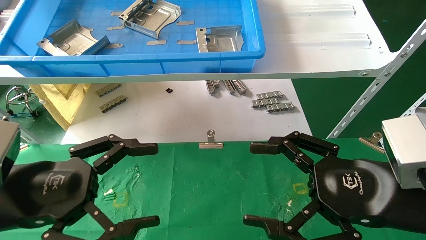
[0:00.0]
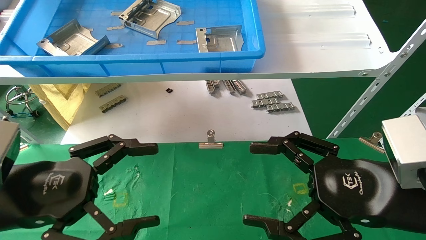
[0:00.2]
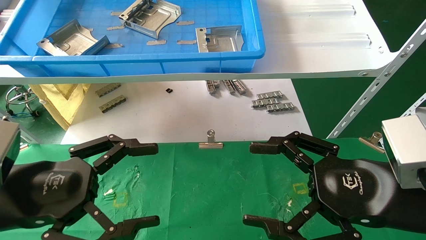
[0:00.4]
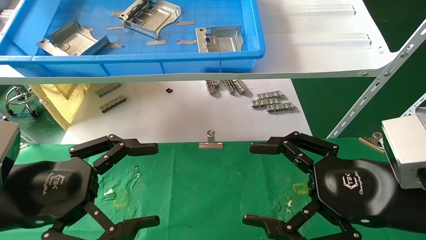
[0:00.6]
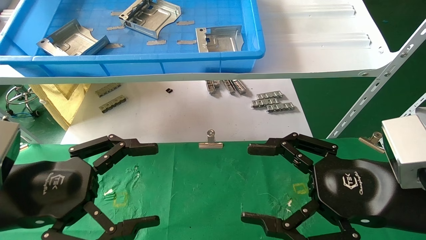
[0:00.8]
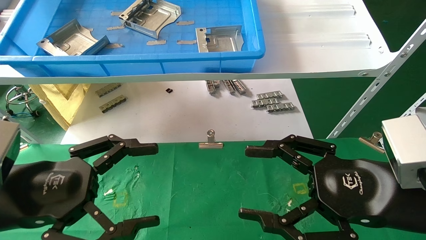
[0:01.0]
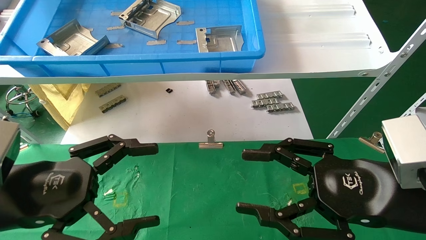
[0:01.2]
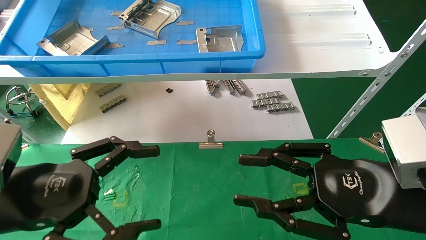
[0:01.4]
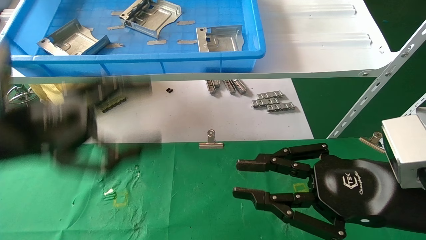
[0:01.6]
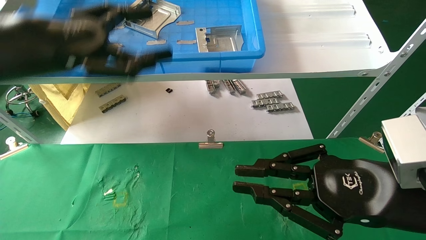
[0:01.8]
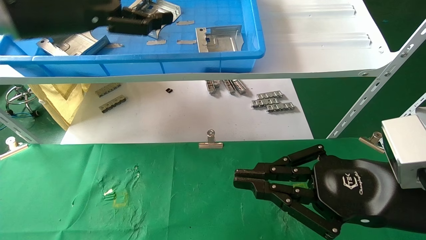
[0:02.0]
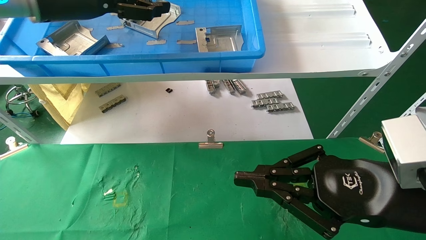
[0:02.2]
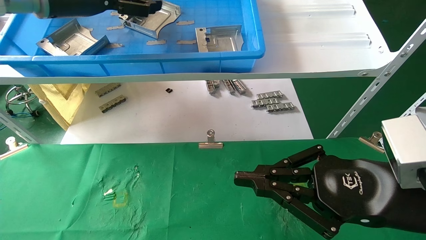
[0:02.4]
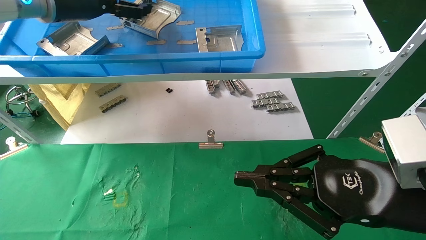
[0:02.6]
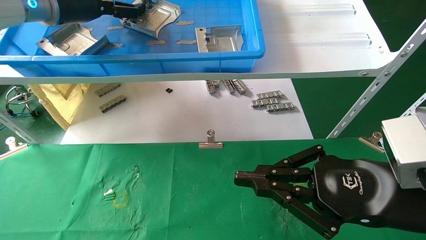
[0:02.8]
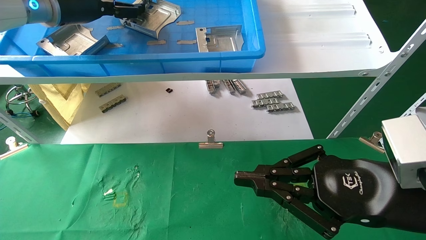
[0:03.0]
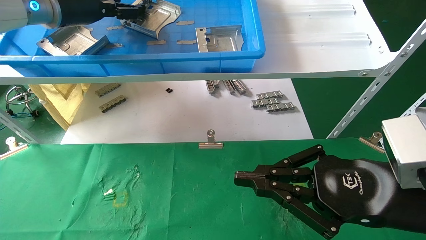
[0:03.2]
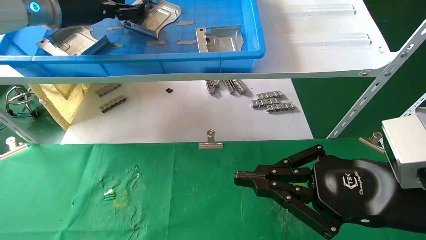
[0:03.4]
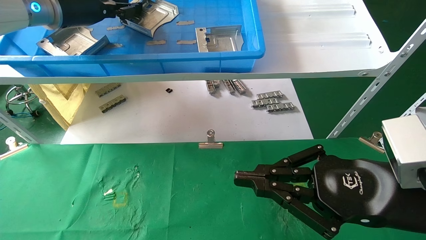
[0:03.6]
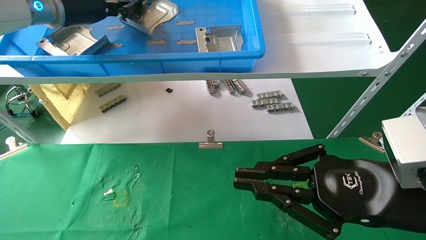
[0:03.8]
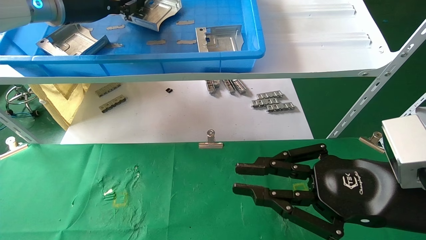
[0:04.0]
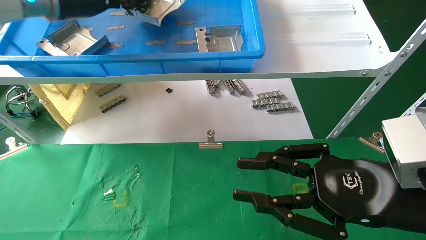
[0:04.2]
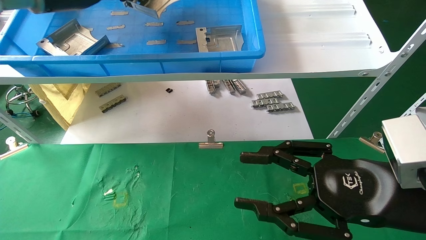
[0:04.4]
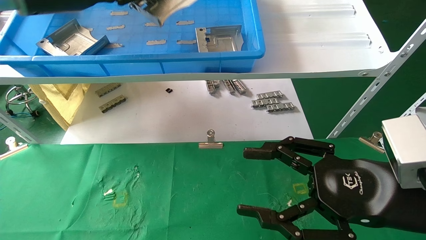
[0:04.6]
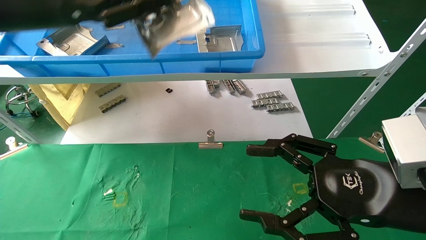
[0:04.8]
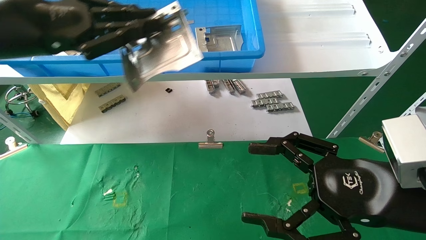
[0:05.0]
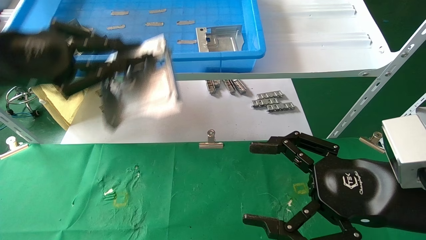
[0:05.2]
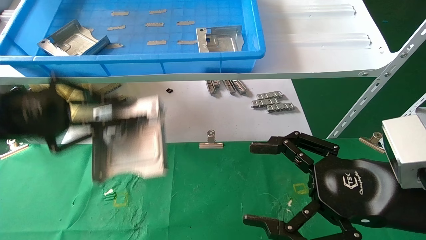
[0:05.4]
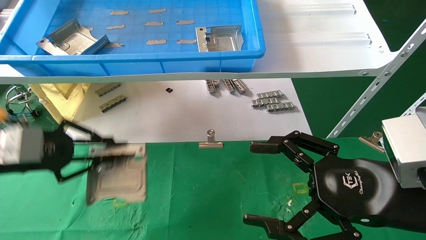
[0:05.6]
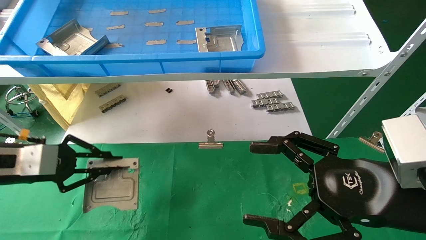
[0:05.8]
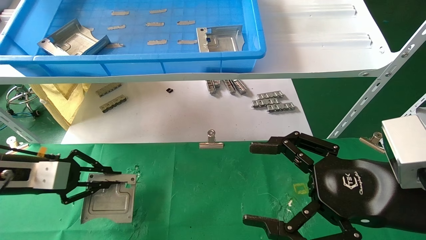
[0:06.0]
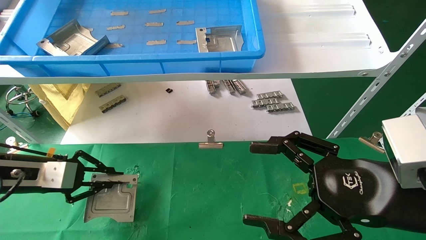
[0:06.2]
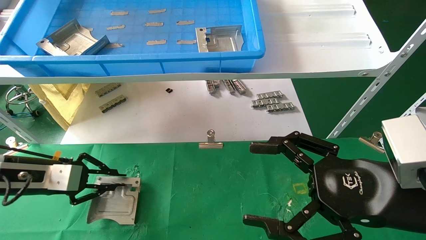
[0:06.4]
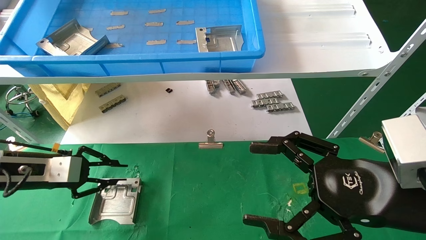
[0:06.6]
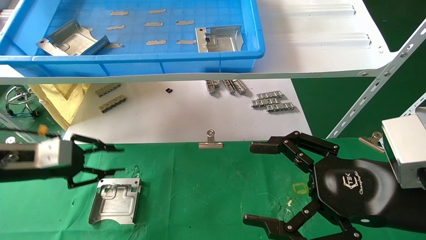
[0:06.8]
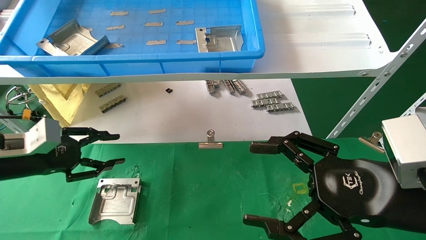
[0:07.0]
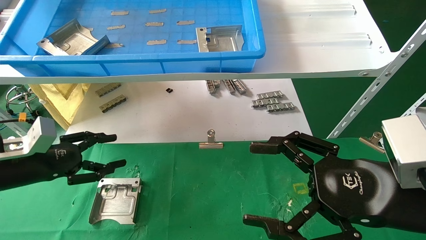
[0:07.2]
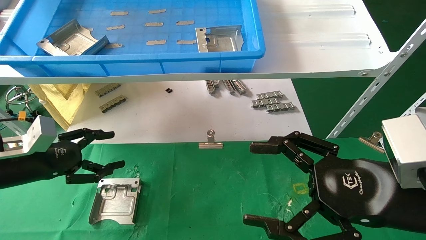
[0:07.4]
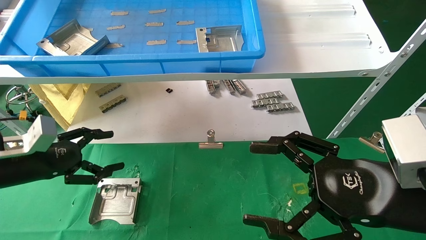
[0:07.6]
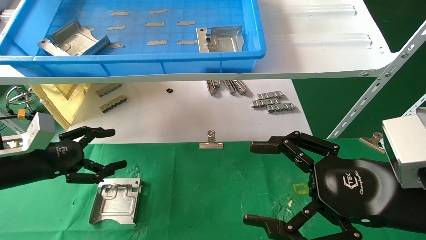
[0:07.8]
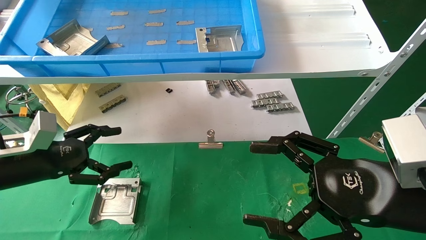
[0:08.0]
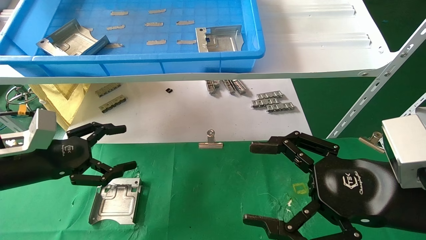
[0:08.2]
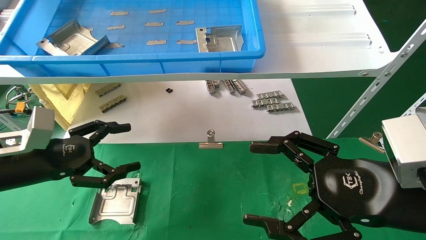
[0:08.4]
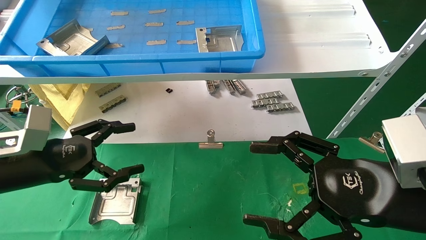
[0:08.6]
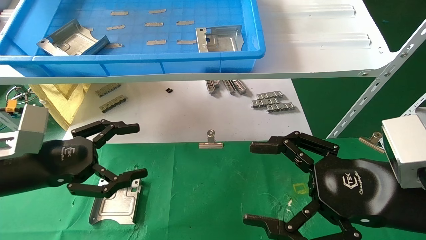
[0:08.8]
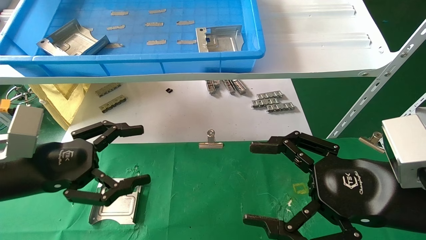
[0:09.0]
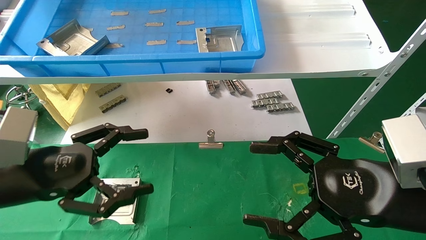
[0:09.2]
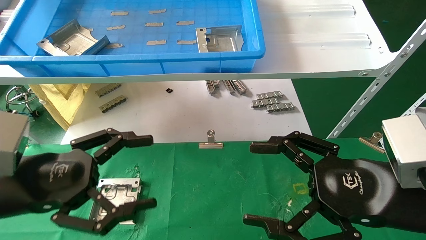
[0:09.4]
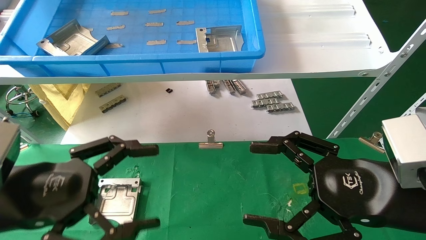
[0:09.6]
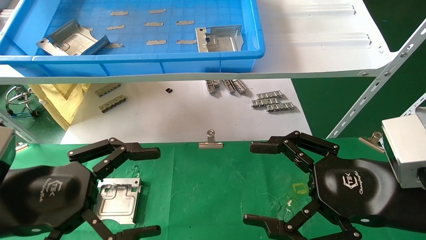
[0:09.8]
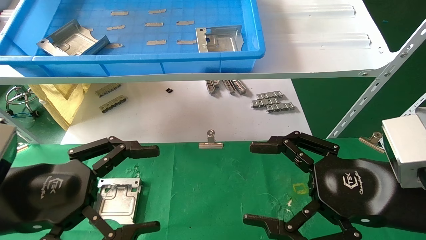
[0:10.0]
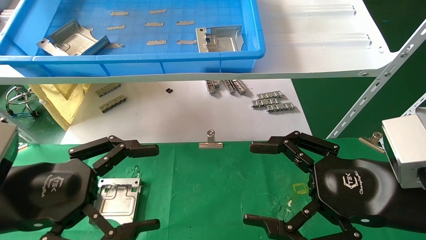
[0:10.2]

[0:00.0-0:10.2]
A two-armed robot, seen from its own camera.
Task of the whole recording: use the mechanical arm to pick up the parts and place them on the table.
Step, 0:01.8 to 0:03.8: Pick up the hard drive bracket from the feeding area.
Step, 0:04.0 to 0:06.8: Place the hard drive bracket into the box.
0:00.0 to 0:01.4: The right gripper closes up.
0:01.4 to 0:03.0: The left gripper travels forward and upward by approximately 30 cm, while the right gripper closes its fingers.
0:03.0 to 0:04.4: The left gripper closes; the right gripper opens.
0:04.4 to 0:05.8: The right gripper opens, while the left gripper is displaced downward and to the left by about 30 cm.
0:05.8 to 0:07.2: The left gripper opens up.
0:07.2 to 0:08.8: The left gripper is displaced to the right and backward by some 10 cm, and opens its fingers.
0:08.8 to 0:10.2: The left gripper moves backward, roughly 10 cm.

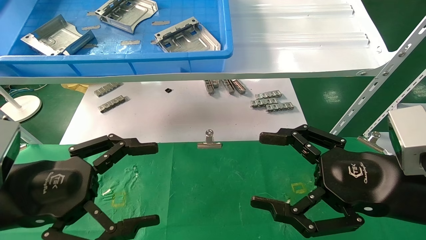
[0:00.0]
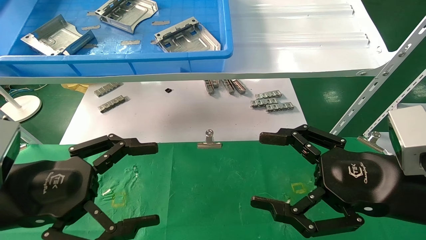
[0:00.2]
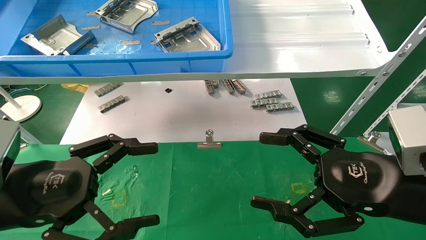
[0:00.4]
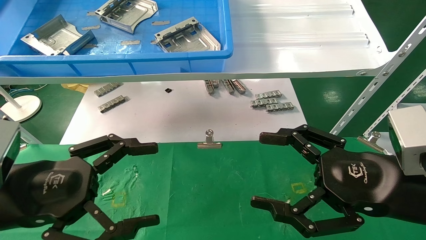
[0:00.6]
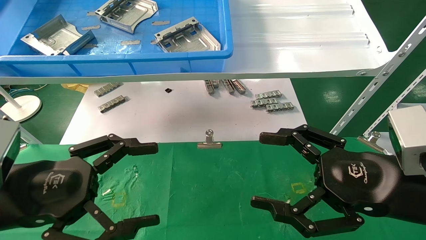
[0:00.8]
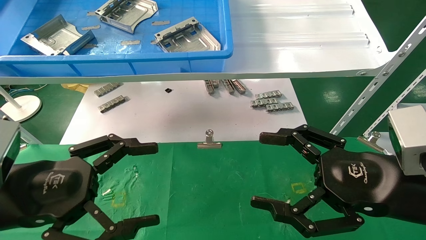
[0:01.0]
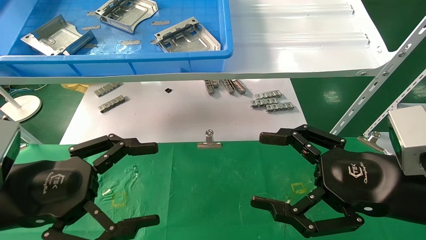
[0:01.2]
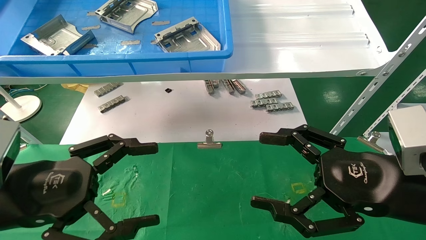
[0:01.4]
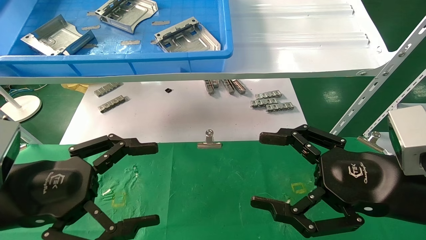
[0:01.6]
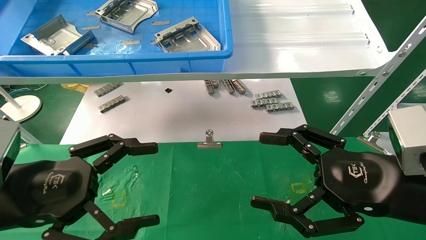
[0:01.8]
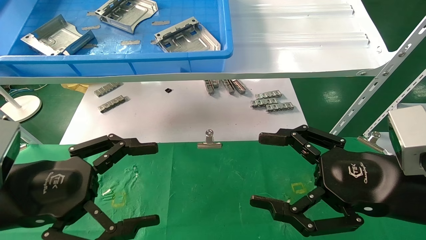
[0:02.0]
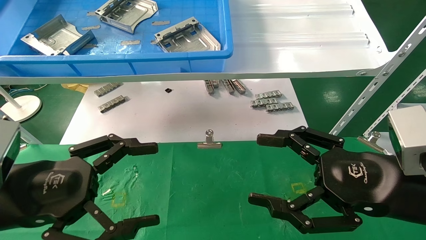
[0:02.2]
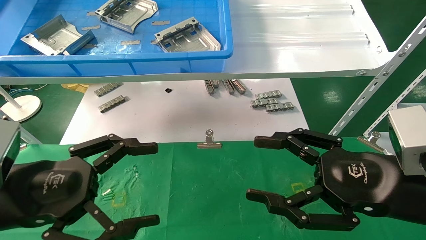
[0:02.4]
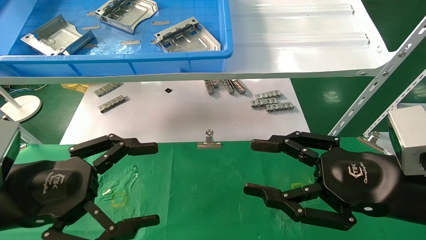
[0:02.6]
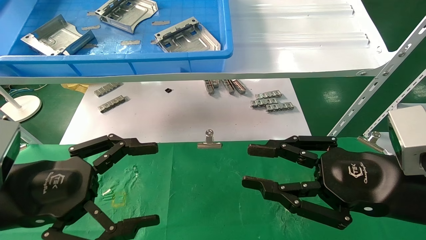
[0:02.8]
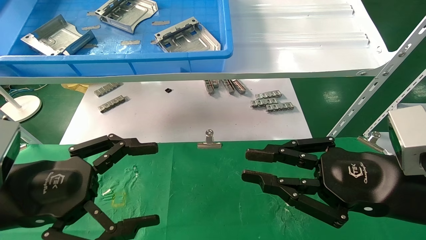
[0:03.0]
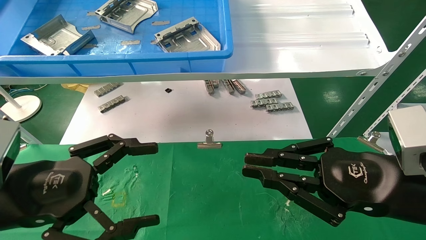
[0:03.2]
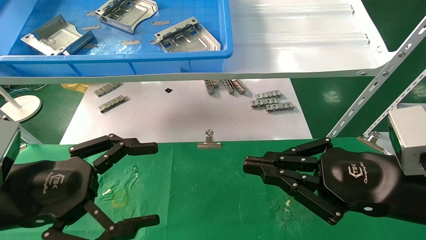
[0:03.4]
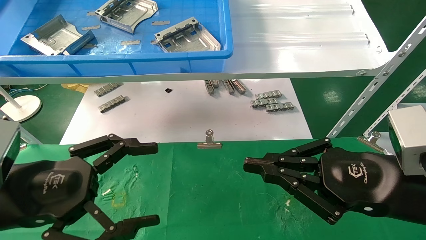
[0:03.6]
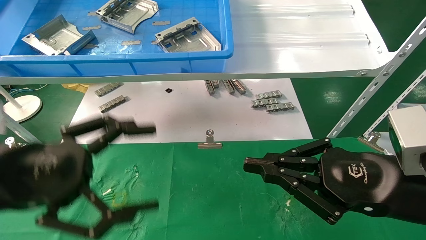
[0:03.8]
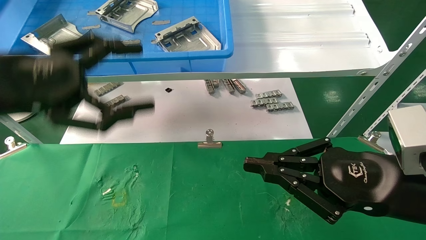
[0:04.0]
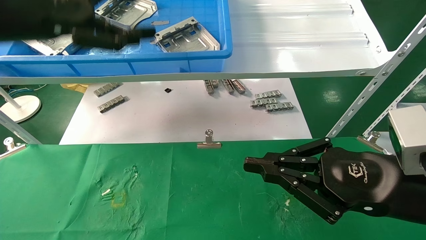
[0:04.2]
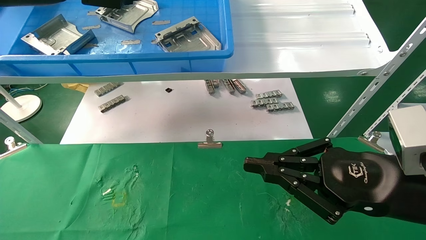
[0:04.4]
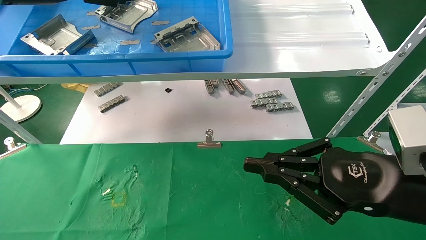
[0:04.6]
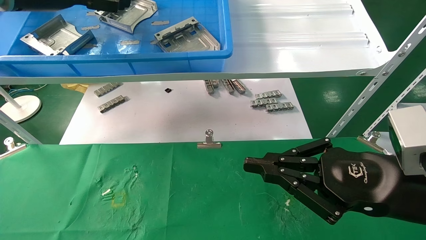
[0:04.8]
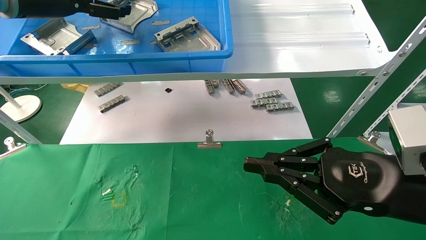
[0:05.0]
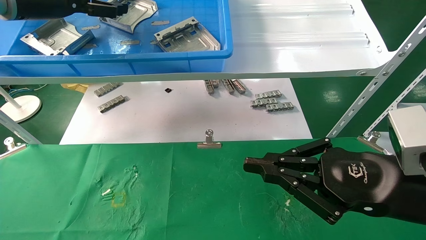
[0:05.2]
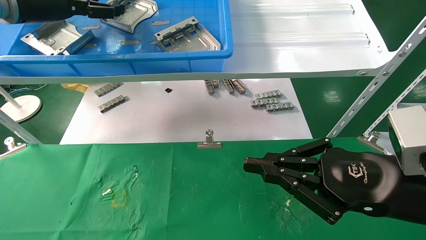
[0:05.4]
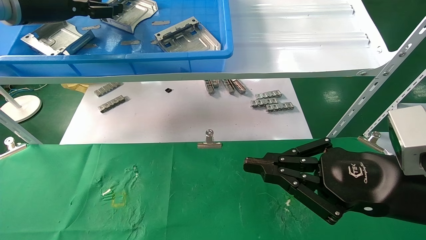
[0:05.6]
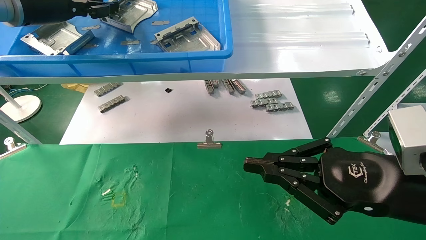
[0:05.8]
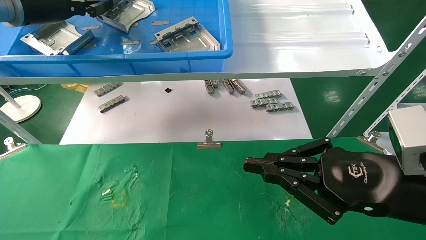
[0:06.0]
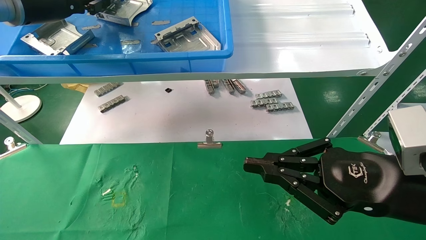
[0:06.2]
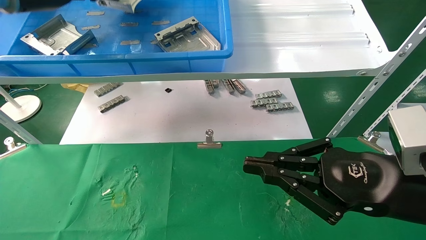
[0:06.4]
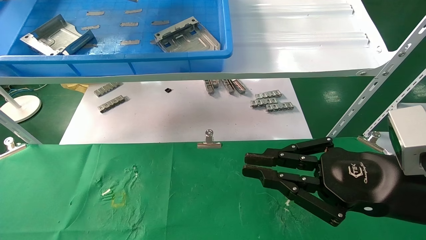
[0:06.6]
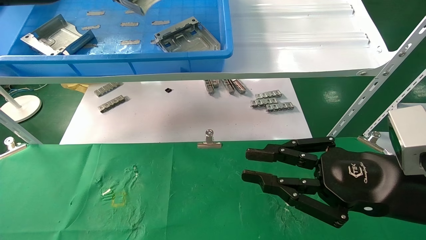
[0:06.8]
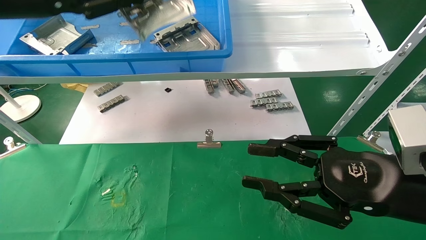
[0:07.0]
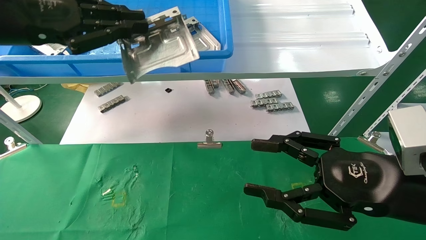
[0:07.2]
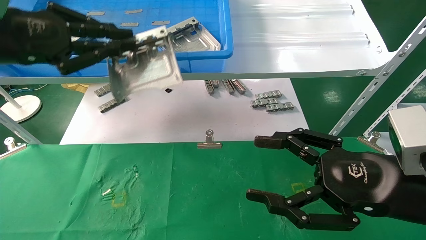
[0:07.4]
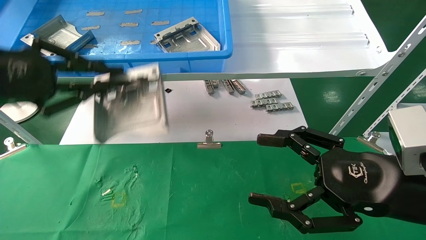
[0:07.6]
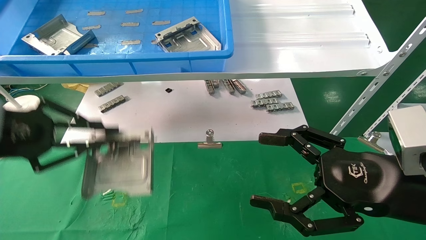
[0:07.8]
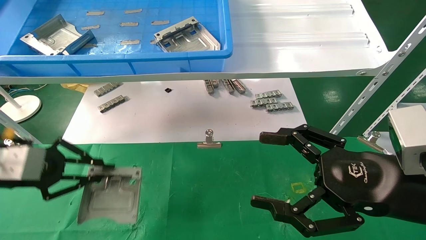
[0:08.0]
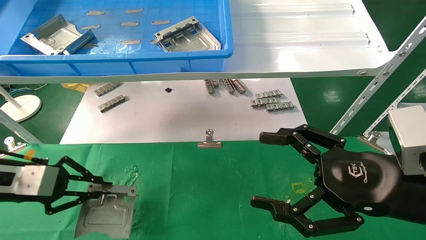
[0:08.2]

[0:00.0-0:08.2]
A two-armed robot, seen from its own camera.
Task of the whole recording: use the mechanical arm to pick up the parts and place them on the table.
Step, 0:02.2 to 0:06.4: Pick up the hard drive bracket from the feeding area.
0:00.0 to 0:01.6: Neither gripper changes place.
0:01.6 to 0:03.2: The right gripper closes its fingers.
0:03.2 to 0:05.0: The left gripper heads upward and forward, covering approximately 30 cm.
0:05.0 to 0:06.6: The left gripper closes up.
0:06.6 to 0:08.2: The left gripper goes approximately 30 cm downward; the right gripper opens its fingers.
